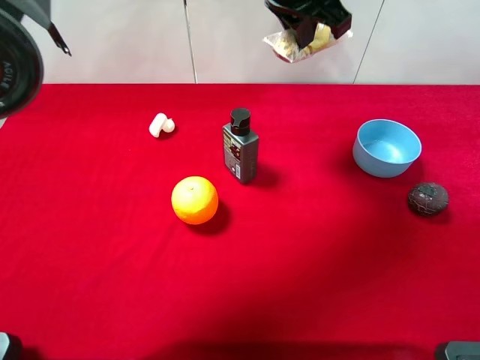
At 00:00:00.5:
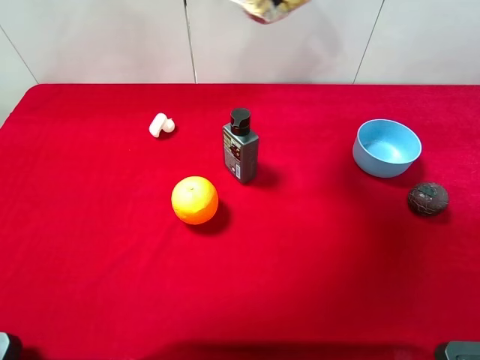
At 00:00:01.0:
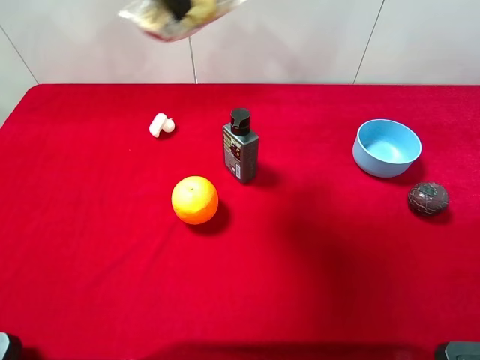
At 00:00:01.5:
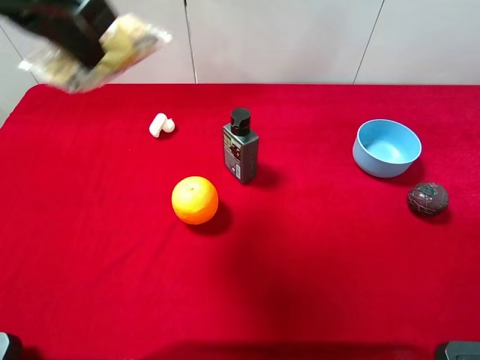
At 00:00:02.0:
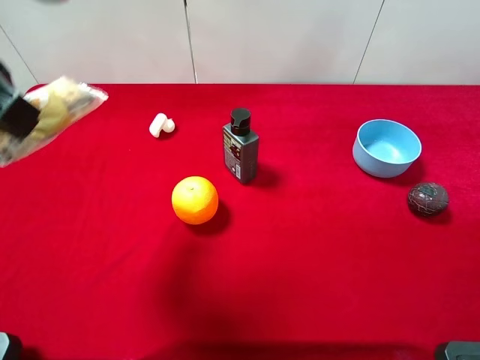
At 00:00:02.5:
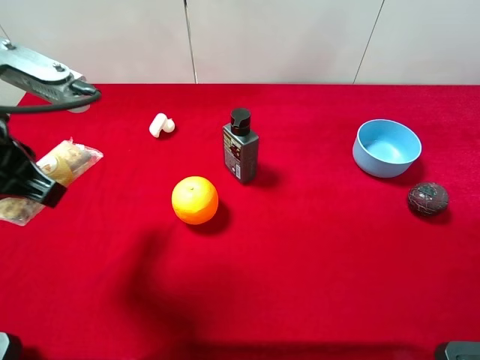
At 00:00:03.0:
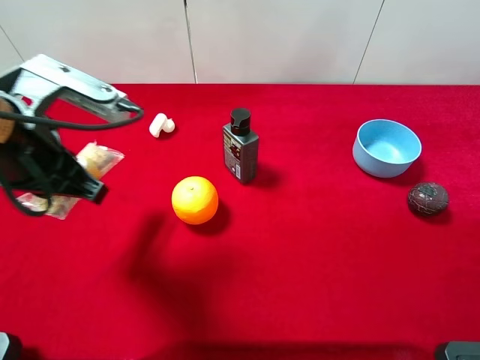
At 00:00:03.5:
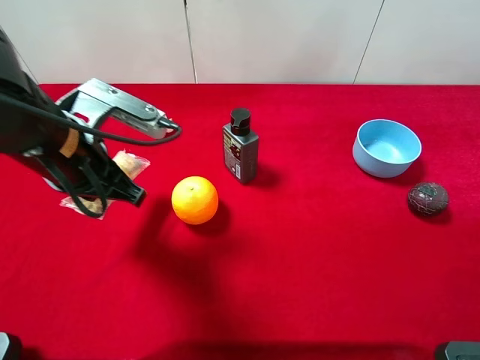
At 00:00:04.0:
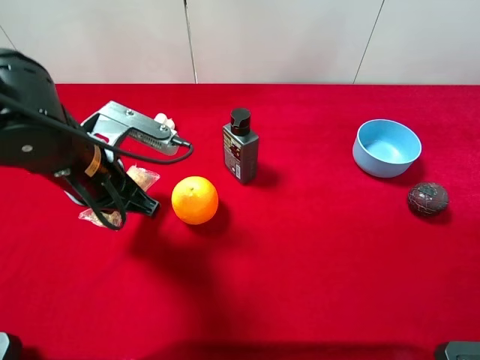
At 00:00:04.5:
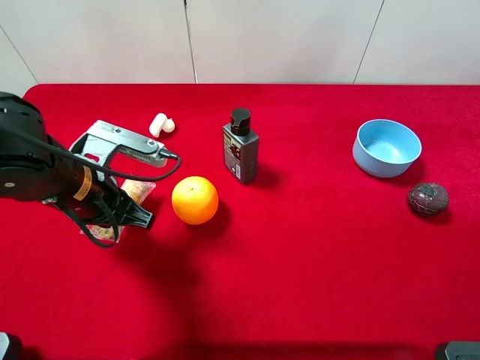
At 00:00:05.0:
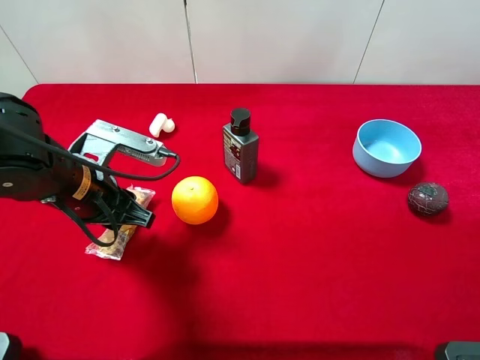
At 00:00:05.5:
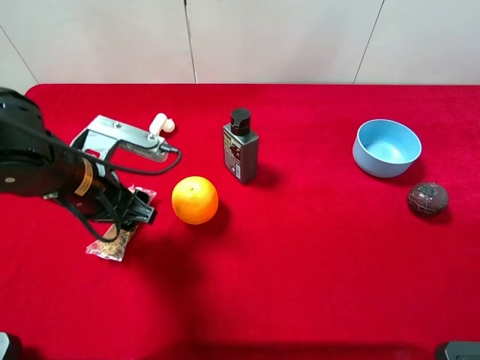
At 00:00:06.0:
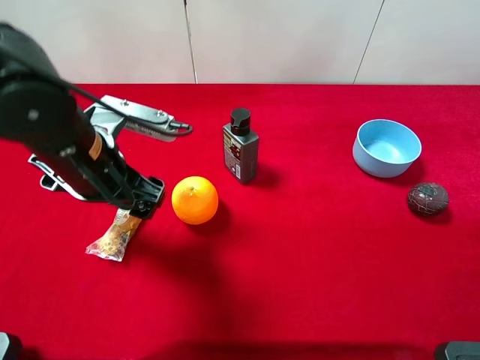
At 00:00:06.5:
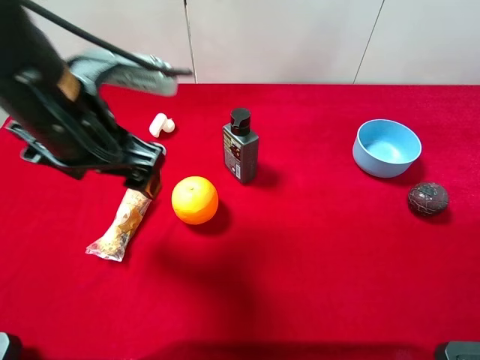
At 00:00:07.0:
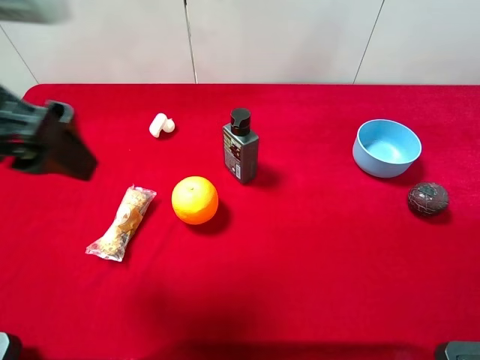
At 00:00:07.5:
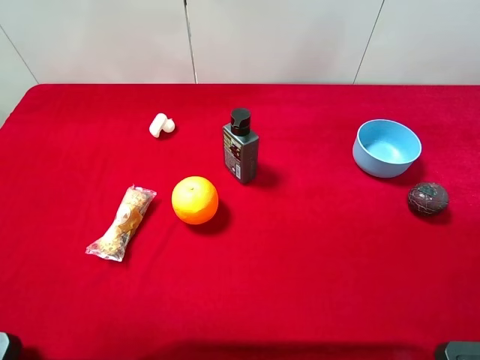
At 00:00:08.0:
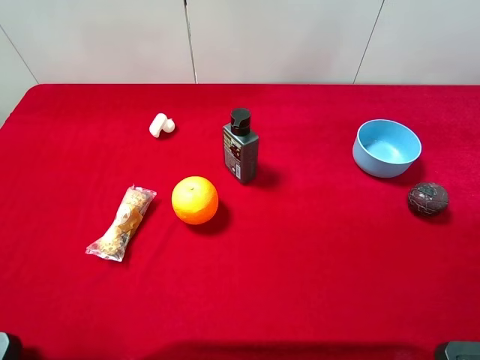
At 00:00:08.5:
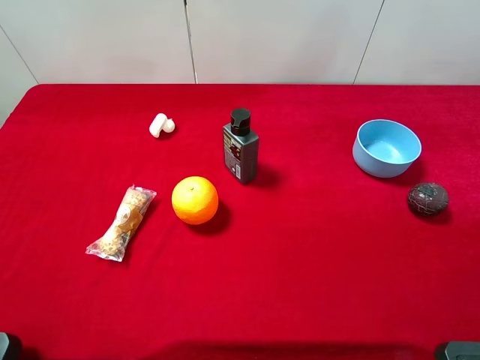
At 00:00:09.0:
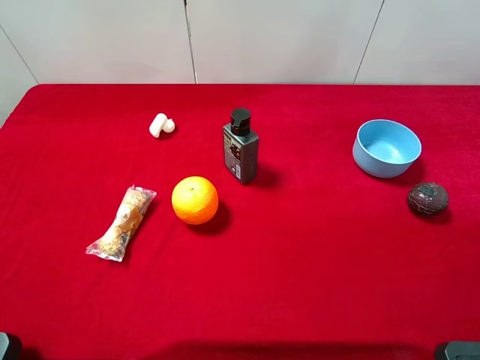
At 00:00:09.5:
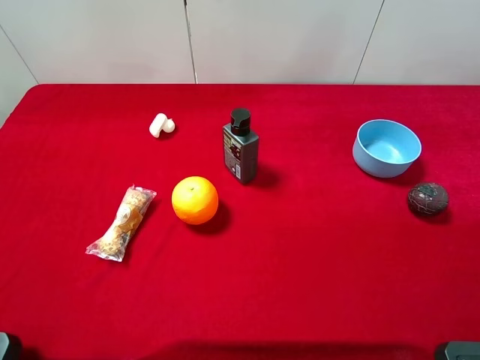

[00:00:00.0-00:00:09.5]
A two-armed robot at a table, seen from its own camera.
Task of the whole recording: the gripper move the object.
Step, 00:00:00.0 to 00:00:06.5: Place the chocolate on the table with the left gripper.
00:00:00.0 to 00:00:02.0: The left gripper heads to the left and backward, covering roughly 30 cm.
00:00:02.0 to 00:00:04.0: The left gripper travels downward by some 20 cm.
00:00:04.0 to 00:00:05.5: The left gripper opens its fingers.
00:00:05.5 to 00:00:07.5: The left gripper travels upward, backward and to the left by some 25 cm.

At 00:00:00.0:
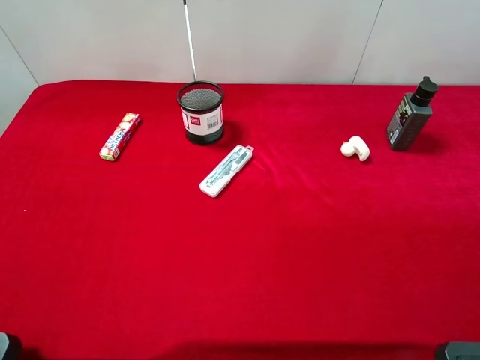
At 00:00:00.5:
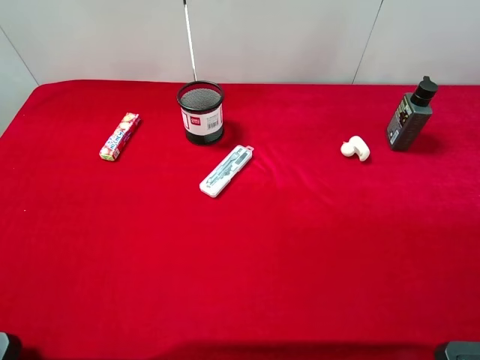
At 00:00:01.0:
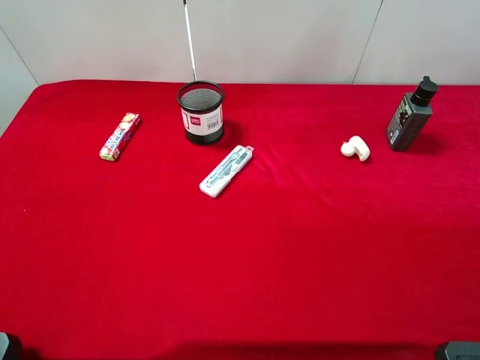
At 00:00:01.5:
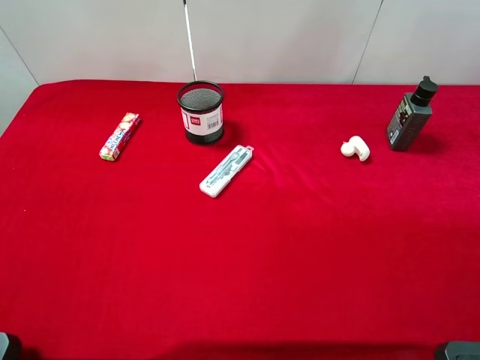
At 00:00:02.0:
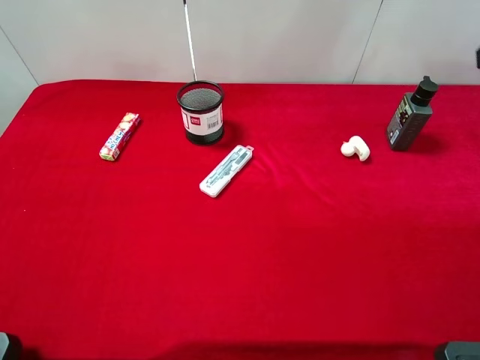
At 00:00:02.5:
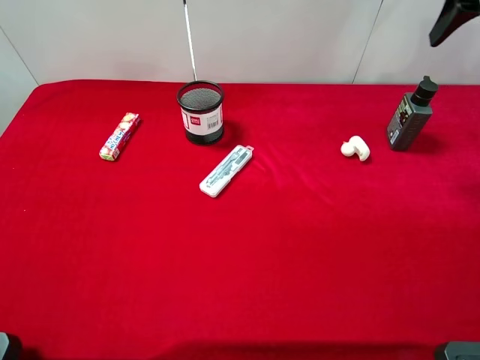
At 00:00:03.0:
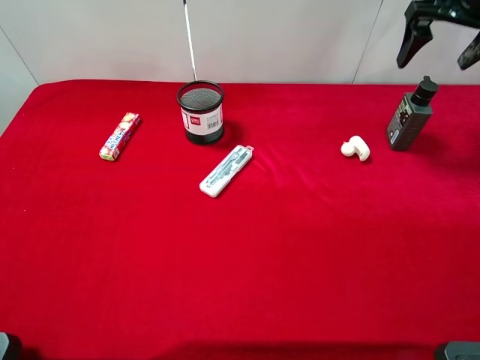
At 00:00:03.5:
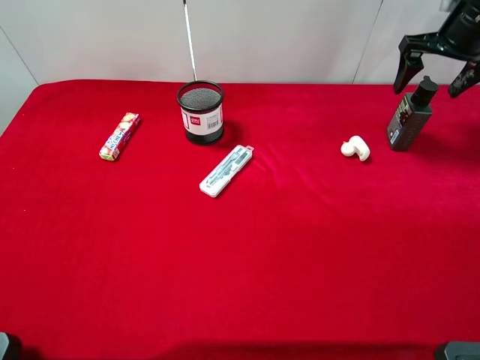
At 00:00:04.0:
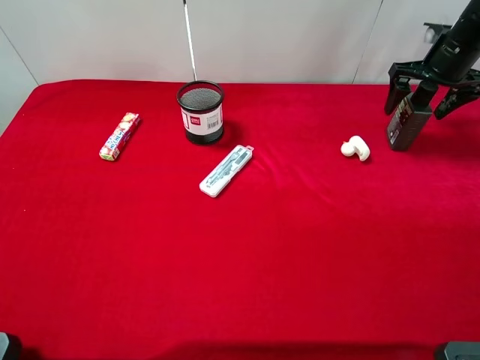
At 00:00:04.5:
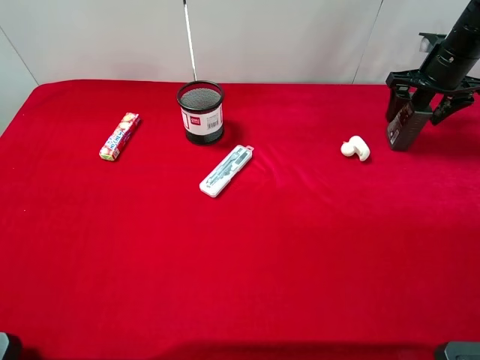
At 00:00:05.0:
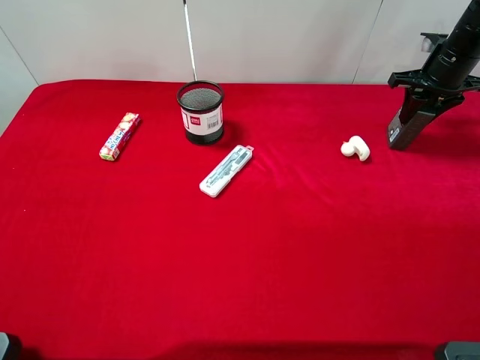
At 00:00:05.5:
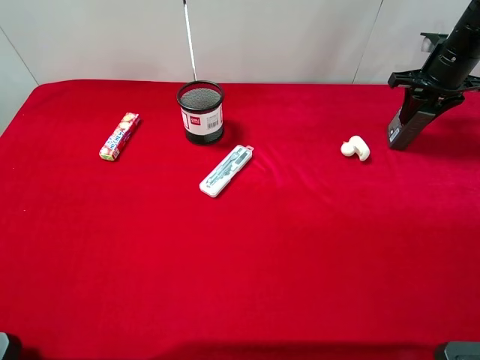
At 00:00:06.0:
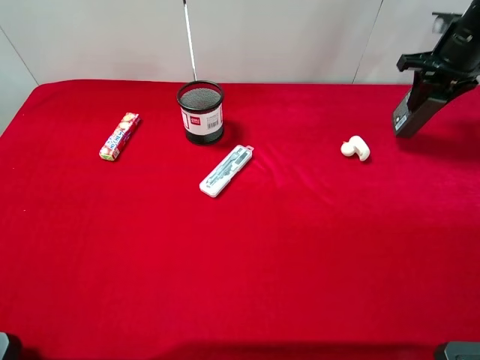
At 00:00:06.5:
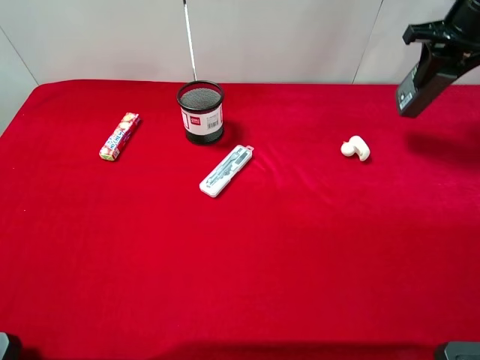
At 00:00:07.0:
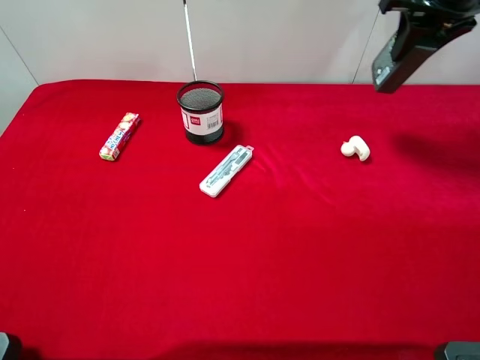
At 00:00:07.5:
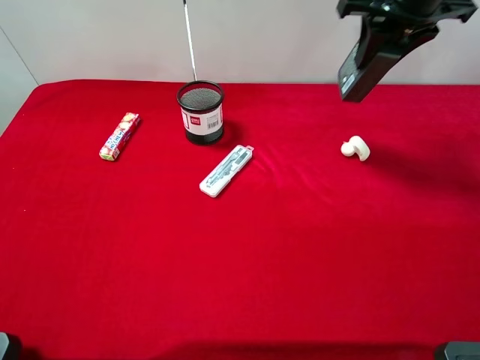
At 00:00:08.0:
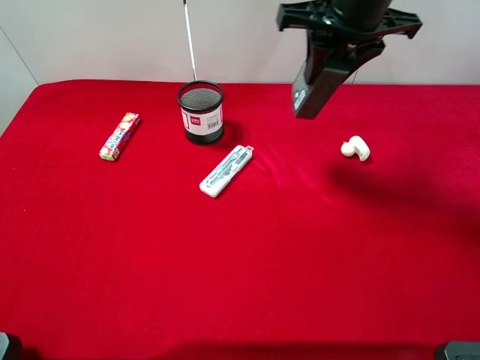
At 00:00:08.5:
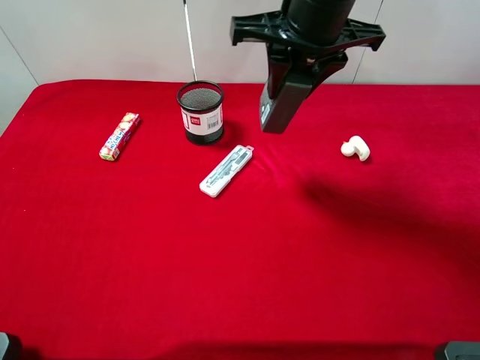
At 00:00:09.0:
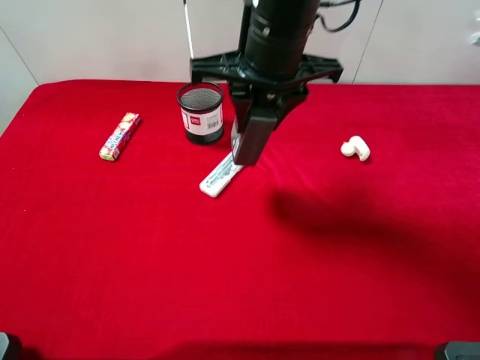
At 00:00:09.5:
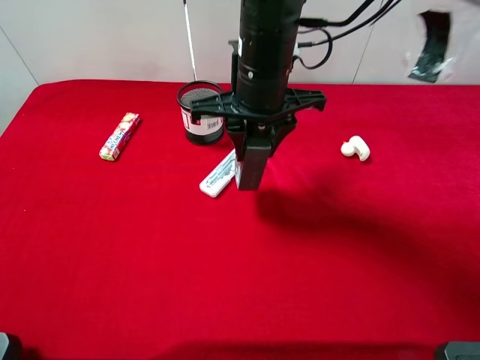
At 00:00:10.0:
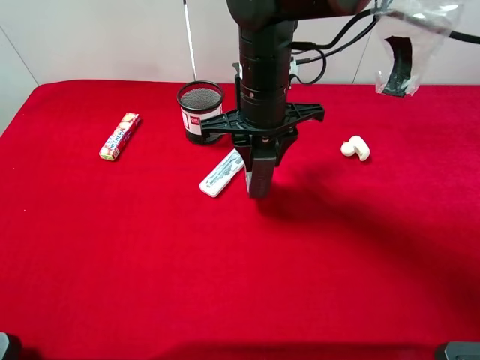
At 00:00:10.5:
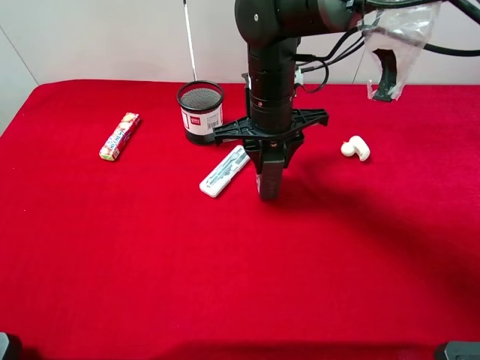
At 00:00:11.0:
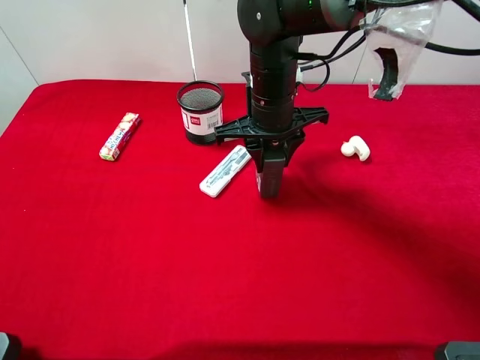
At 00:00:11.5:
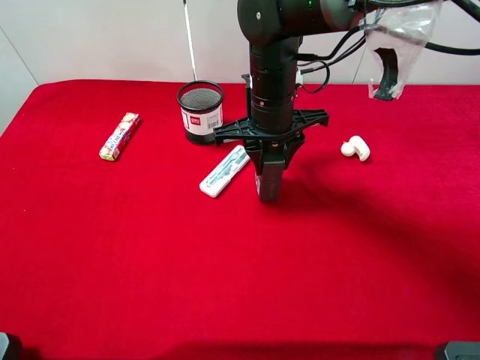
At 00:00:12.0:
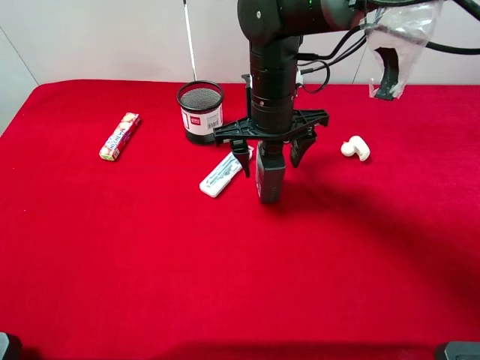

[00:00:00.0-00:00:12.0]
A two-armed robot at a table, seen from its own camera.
Task of the whole recording: the gripper move the object.
Step, 00:00:00.0 to 00:00:05.0: Grasp the hard facial cleanser with the right gripper.
00:00:02.0 to 00:00:04.0: The right gripper heads forward and downward, covering about 25 cm.
00:00:04.0 to 00:00:06.0: The right gripper closes its fingers.
00:00:06.0 to 00:00:08.0: The right gripper is displaced to the left, backward and upward by about 25 cm.
00:00:08.0 to 00:00:10.0: The right gripper goes some 15 cm downward and to the left.
00:00:10.0 to 00:00:12.0: The right gripper opens up.

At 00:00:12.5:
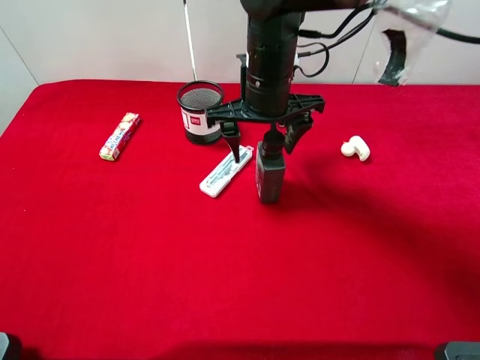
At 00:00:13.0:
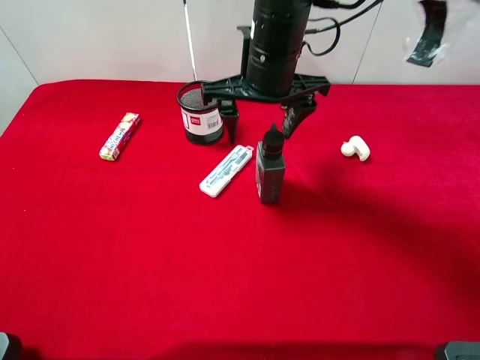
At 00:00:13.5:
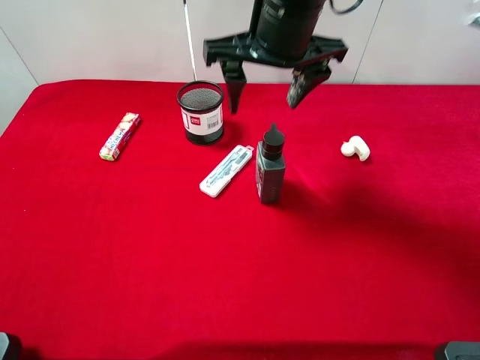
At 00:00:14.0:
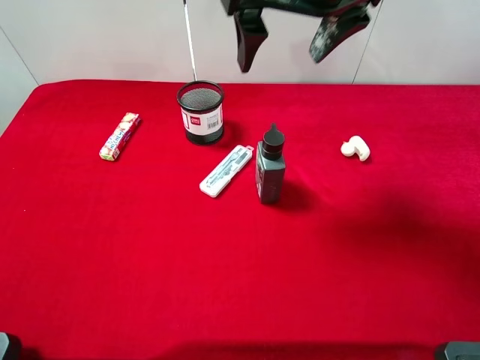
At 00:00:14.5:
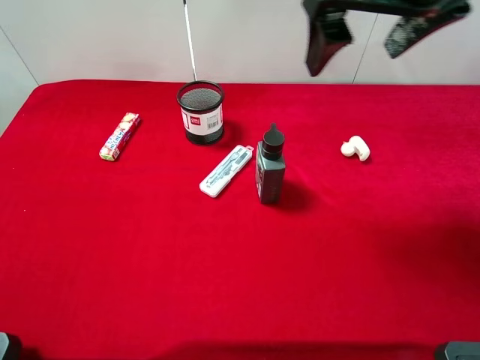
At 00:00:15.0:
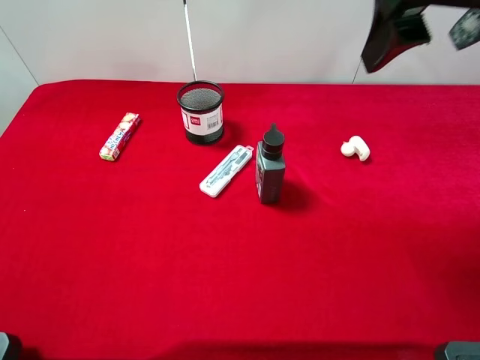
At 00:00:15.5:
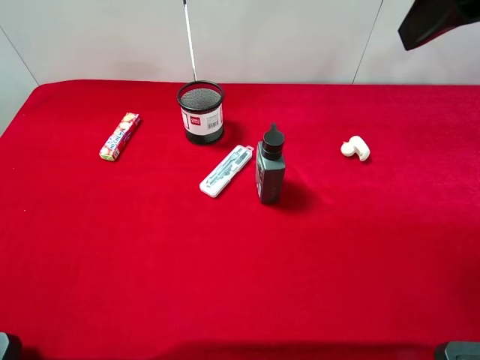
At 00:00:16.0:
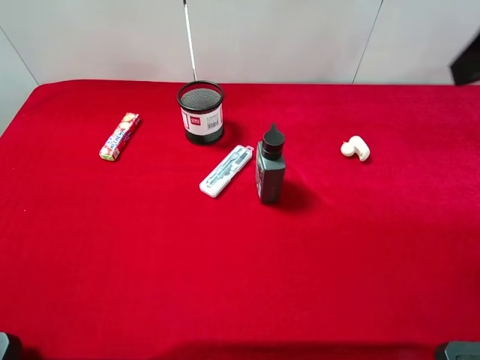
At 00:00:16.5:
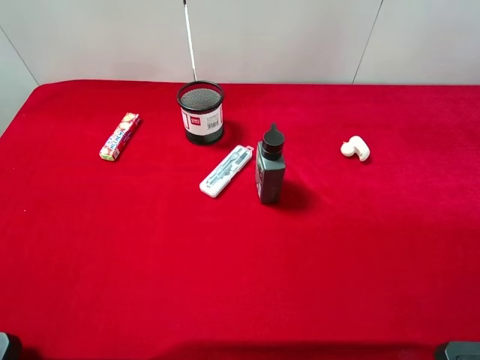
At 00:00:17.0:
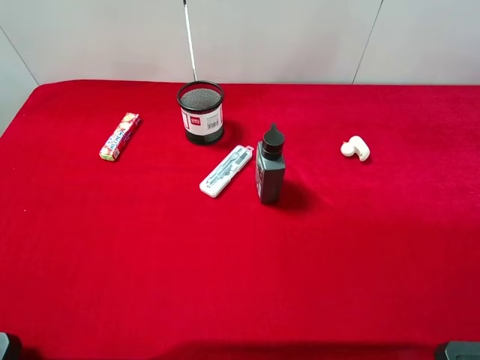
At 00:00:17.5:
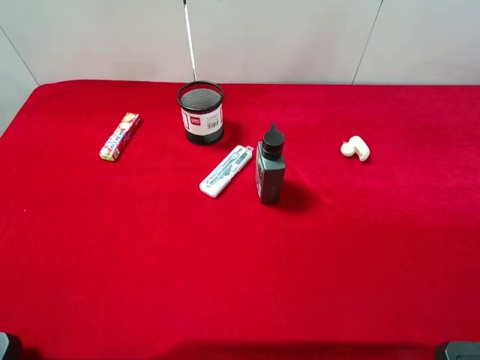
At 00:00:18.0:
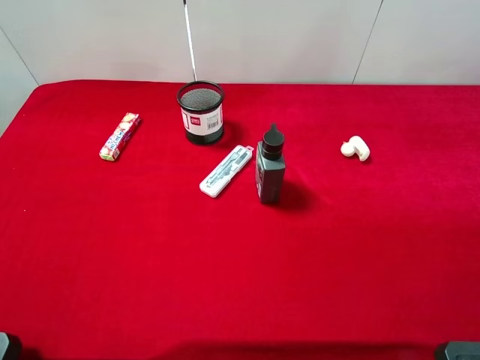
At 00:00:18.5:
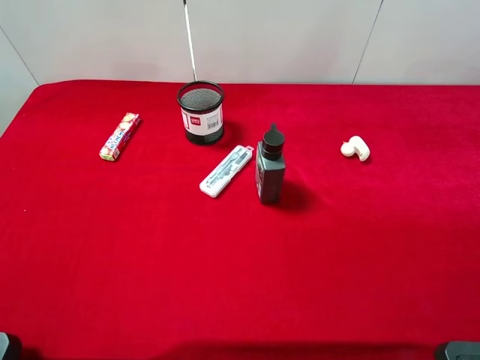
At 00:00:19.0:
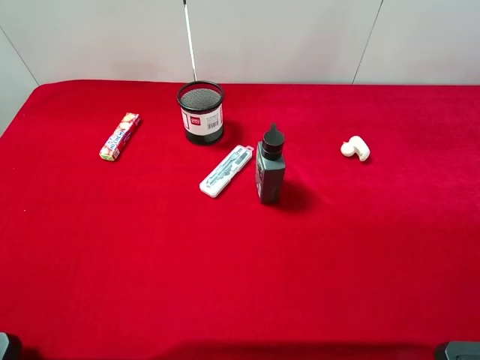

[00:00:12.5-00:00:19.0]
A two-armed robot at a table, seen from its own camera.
Task of the whole recording: the gripper move the object.
00:00:12.5 to 00:00:14.5: The right gripper shifts some 20 cm upward, to the right and backward.
00:00:14.5 to 00:00:17.0: The right gripper moves backward and to the right, roughly 30 cm.
